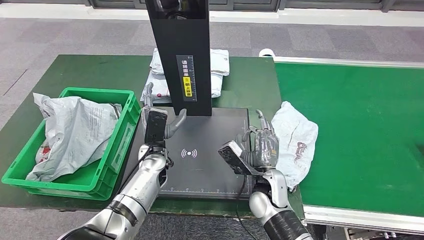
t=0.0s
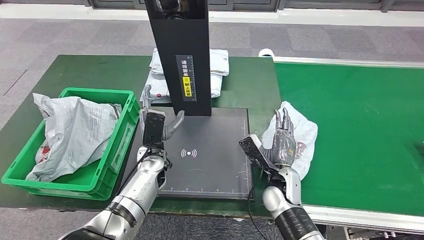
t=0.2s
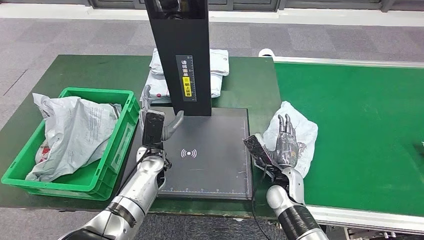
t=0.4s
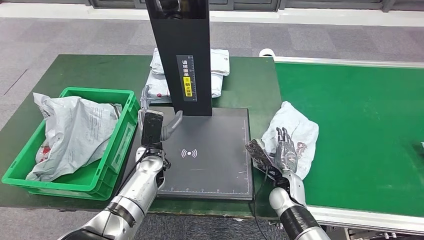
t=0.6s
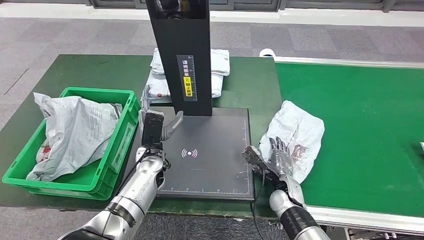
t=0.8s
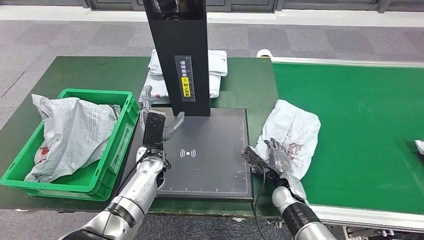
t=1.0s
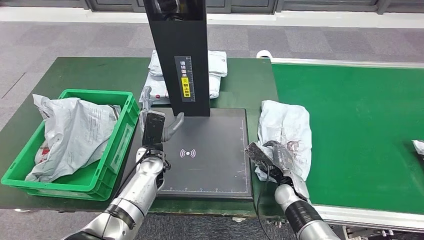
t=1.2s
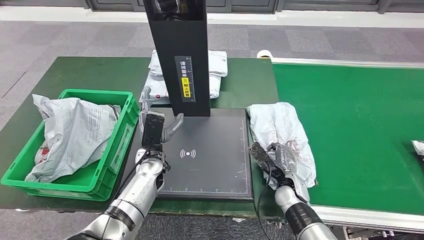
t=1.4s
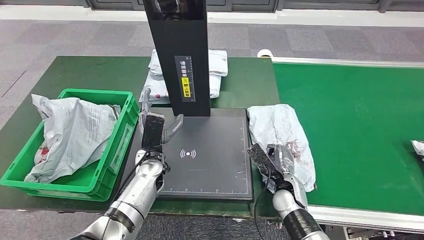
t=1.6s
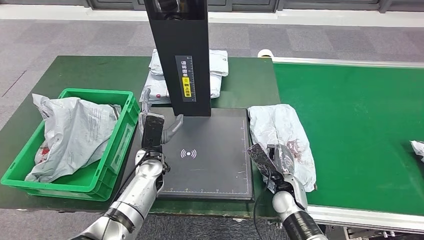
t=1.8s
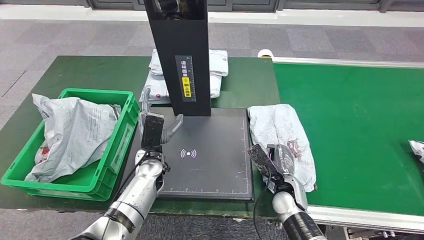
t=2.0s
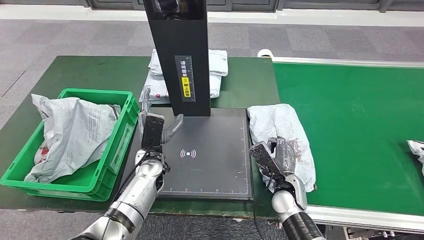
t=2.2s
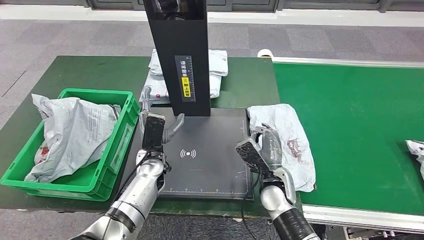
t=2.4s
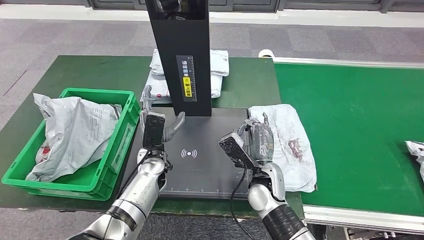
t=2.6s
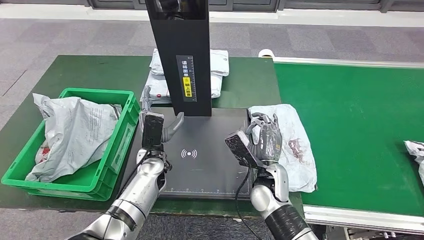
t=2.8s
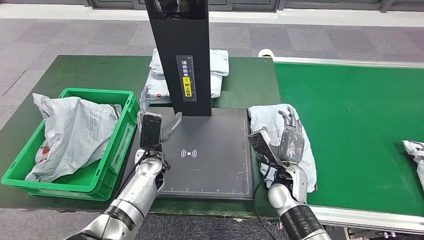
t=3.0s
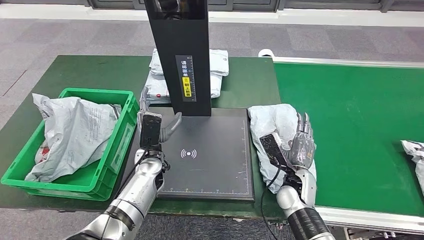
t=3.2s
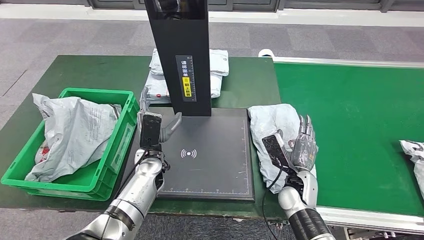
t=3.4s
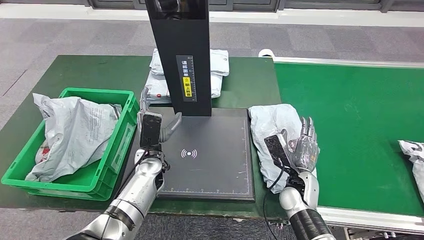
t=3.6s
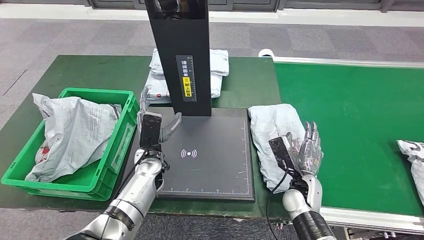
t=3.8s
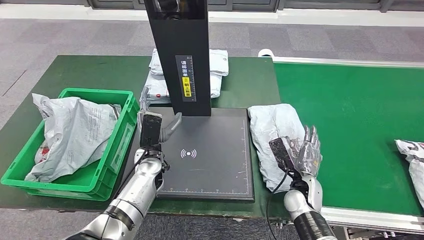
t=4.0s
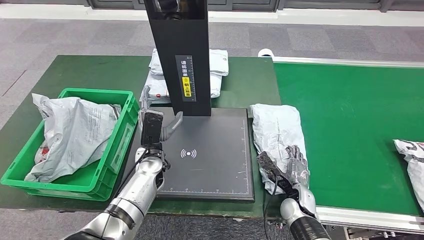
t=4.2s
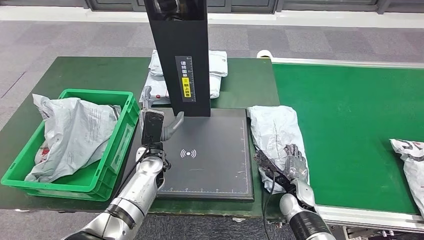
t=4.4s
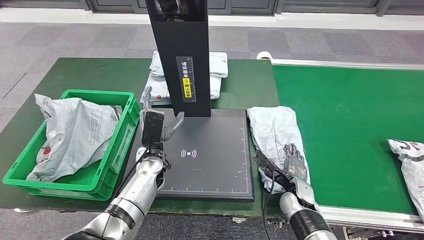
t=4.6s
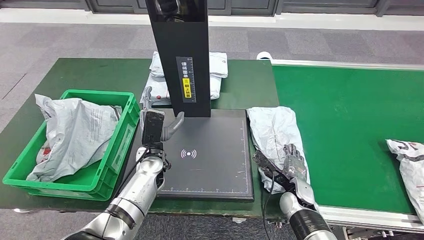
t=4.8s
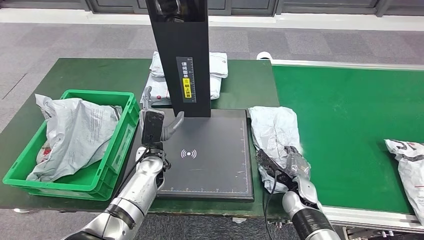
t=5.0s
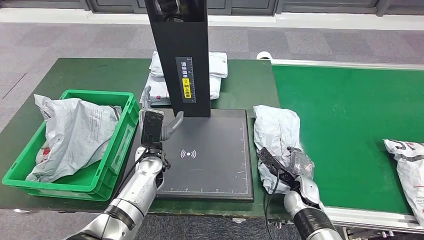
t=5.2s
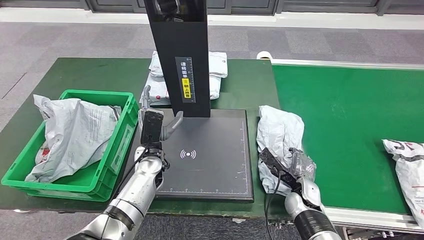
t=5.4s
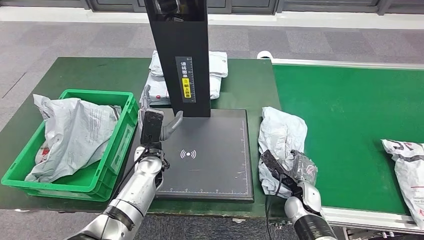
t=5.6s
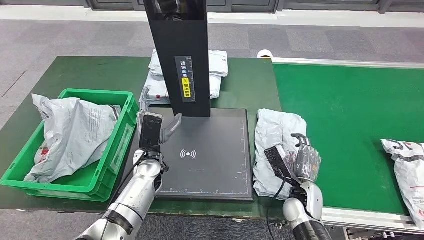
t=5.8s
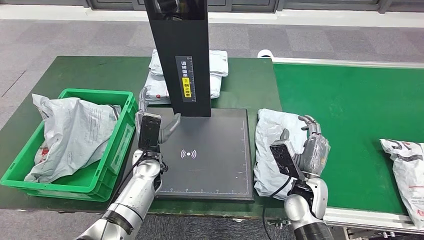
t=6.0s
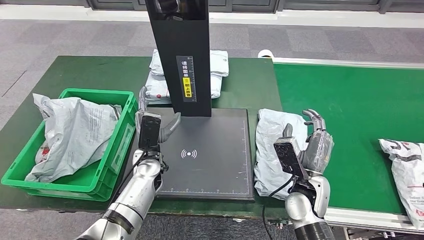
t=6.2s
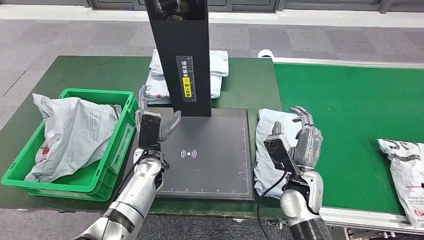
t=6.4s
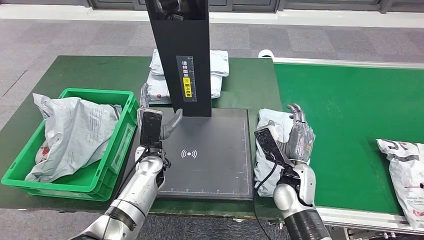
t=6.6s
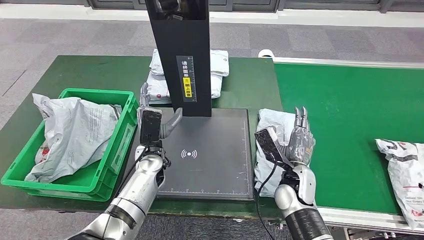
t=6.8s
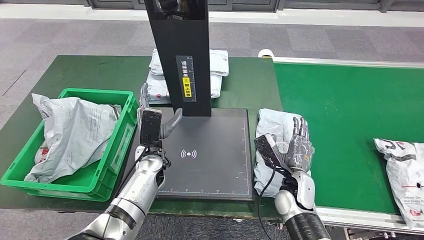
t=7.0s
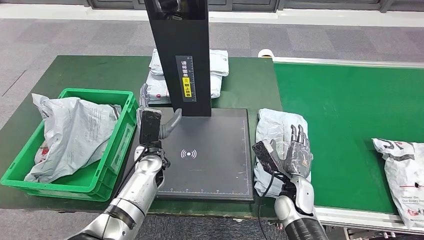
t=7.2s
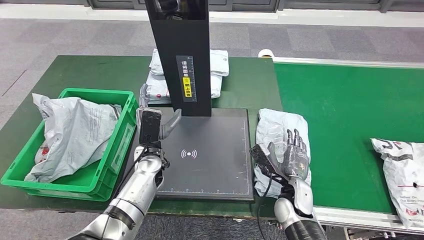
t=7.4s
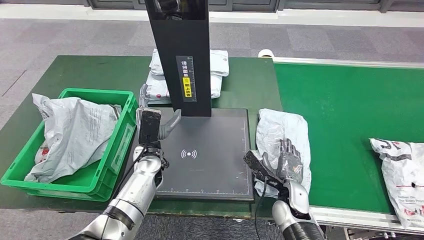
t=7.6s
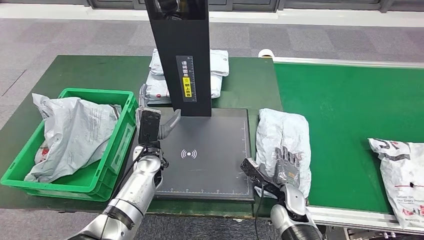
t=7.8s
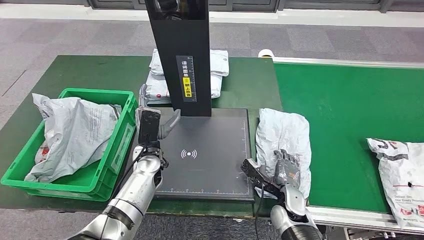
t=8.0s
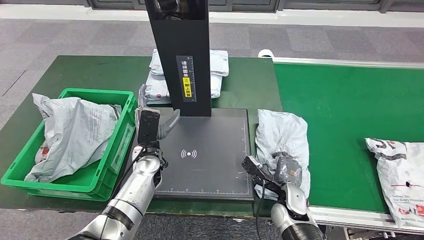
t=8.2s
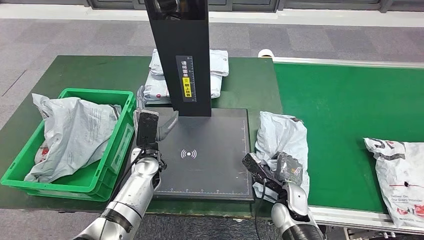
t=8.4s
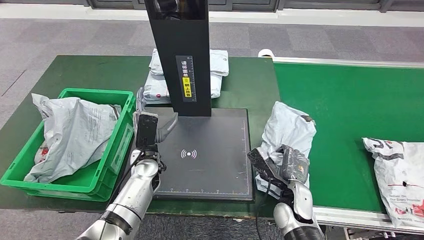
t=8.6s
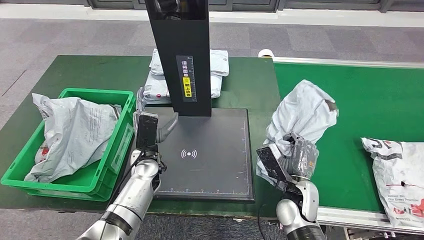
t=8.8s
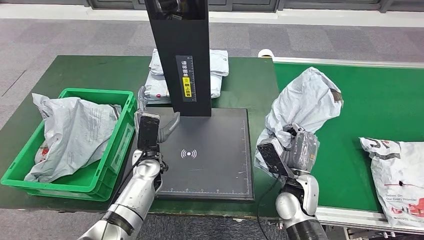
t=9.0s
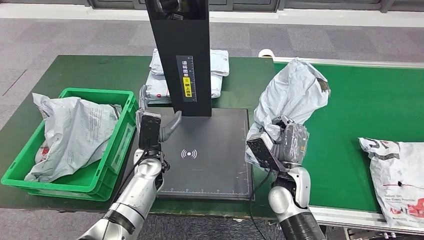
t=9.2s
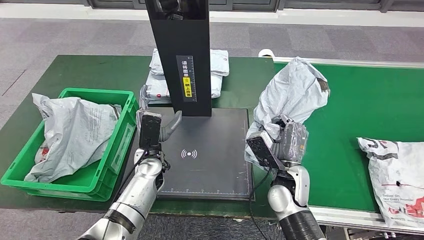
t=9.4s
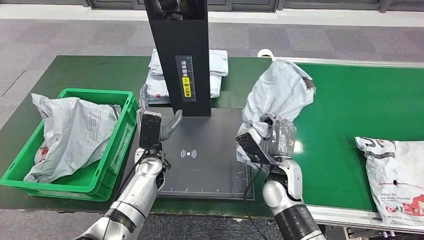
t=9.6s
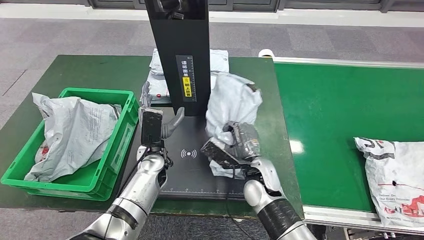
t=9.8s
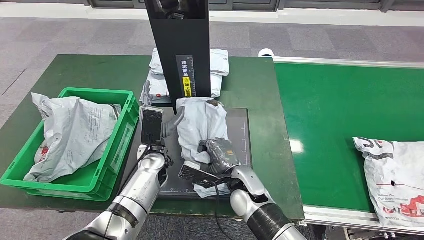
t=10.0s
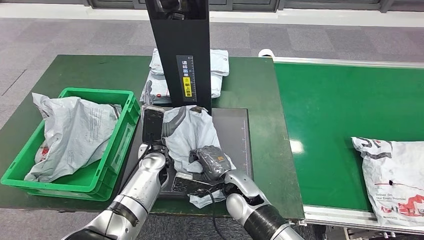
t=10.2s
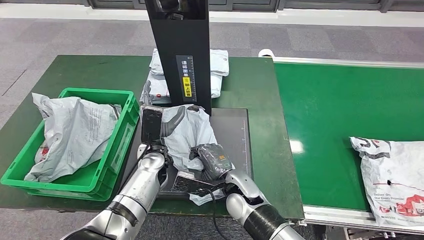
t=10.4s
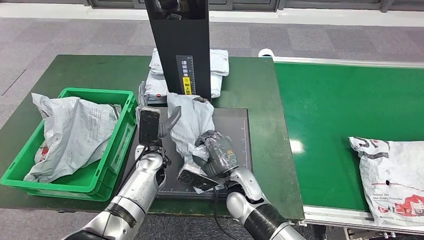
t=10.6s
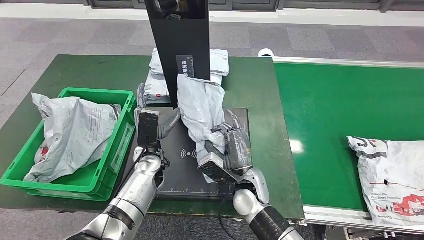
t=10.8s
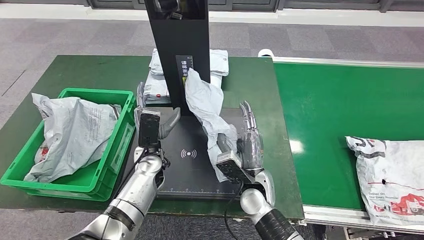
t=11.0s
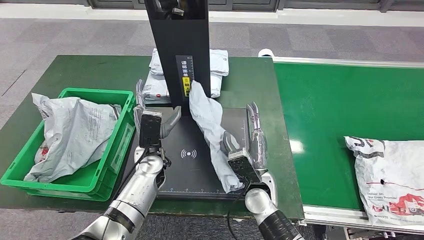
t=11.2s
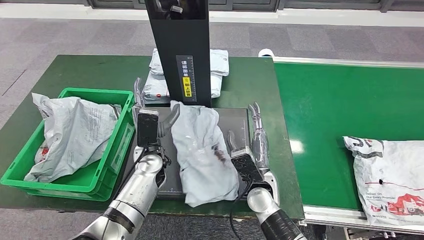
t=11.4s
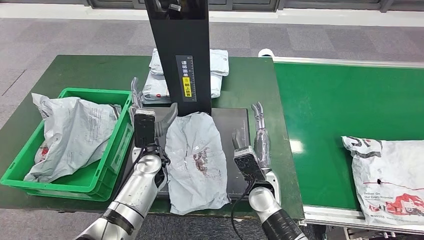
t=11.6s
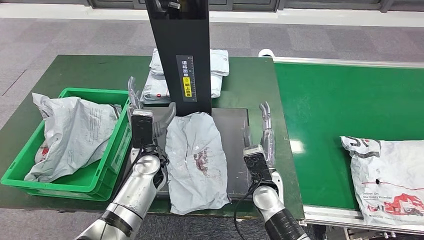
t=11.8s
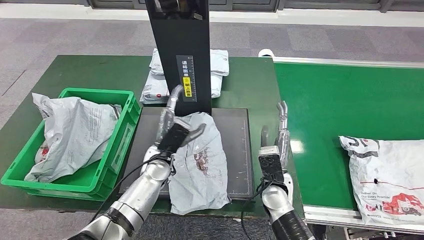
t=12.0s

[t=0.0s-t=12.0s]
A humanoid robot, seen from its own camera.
Step, t=6.6s to t=9.2s: Pick up the parcel from the conveyor belt.
Step, t=9.4s to t=12.0s: Place the parcel onto the inbound machine.
t=0.0s to t=1.6s: The right hand travels to the right and downward by approximately 10 cm.
t=1.6s to t=3.0s: The right hand goes some 5 cm upward.
t=3.0s to t=4.4s: The right hand is displaced downward and to the right by approximately 10 cm.
t=4.4s to t=6.0s: The right hand is displaced upward by about 10 cm.
t=6.0s to t=7.6s: The right hand is displaced downward by roughly 5 cm.
t=7.6s to t=9.0s: The right hand travels upward by some 5 cm.
t=10.4s to t=12.0s: The right hand is displaced to the right by some 10 cm.

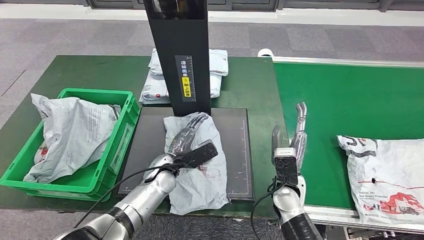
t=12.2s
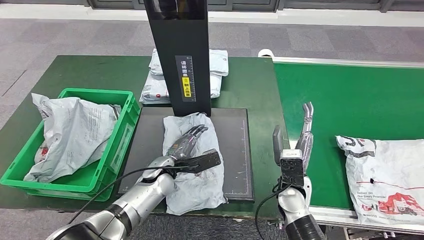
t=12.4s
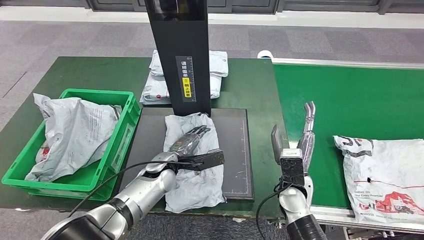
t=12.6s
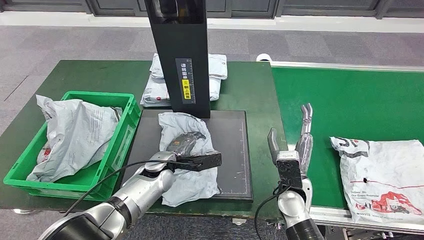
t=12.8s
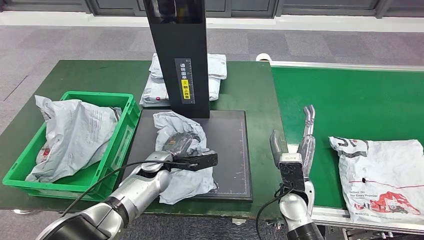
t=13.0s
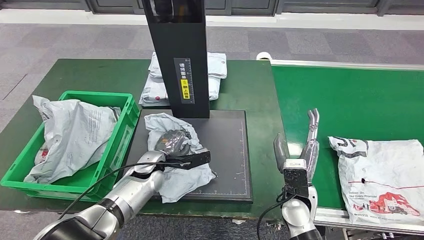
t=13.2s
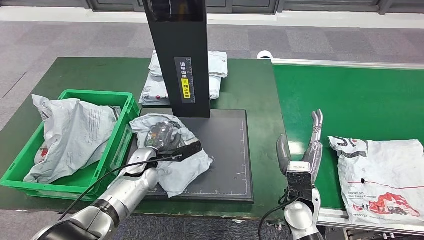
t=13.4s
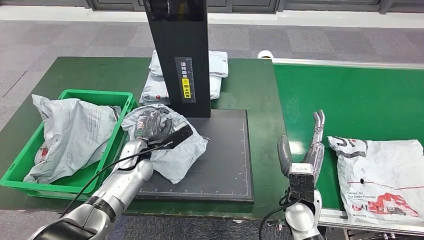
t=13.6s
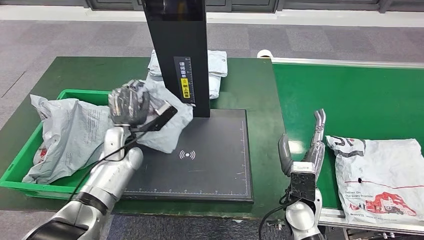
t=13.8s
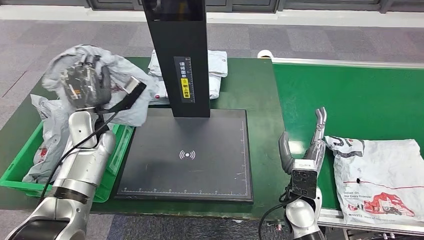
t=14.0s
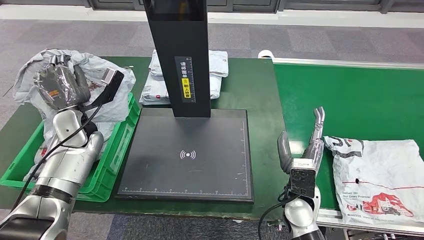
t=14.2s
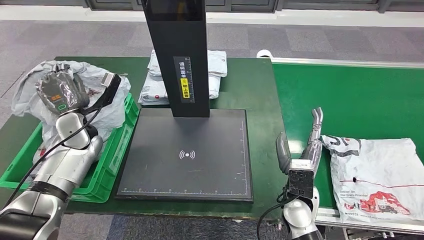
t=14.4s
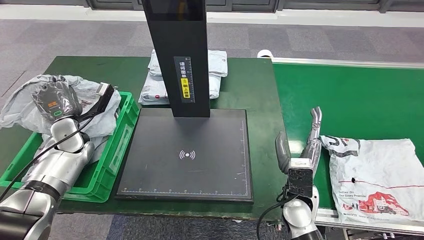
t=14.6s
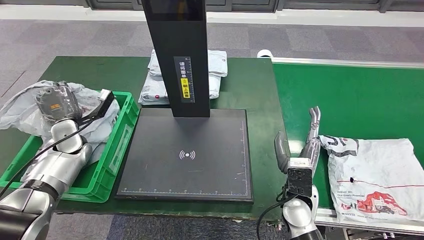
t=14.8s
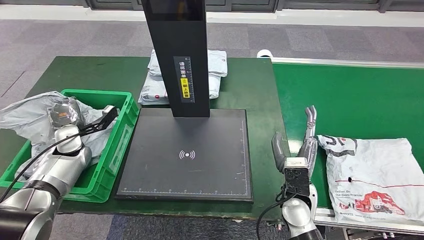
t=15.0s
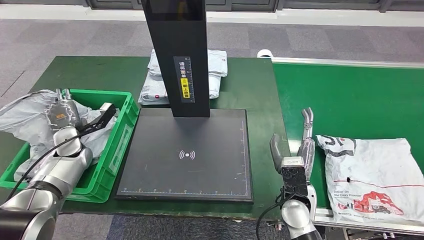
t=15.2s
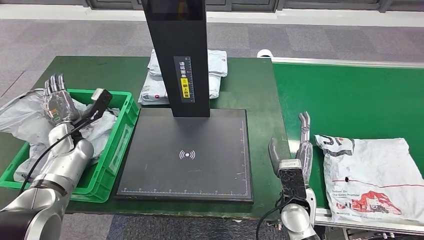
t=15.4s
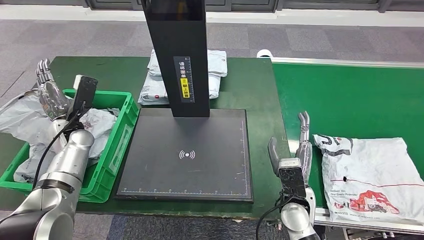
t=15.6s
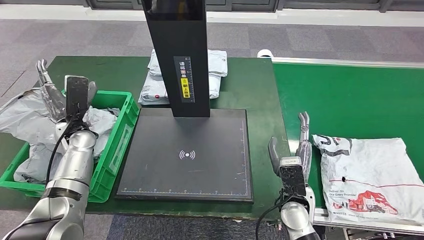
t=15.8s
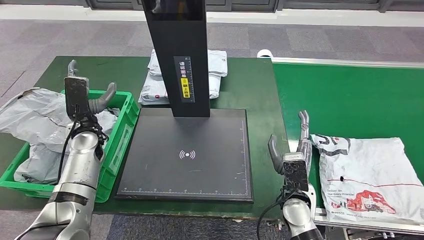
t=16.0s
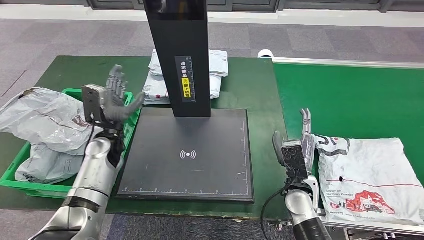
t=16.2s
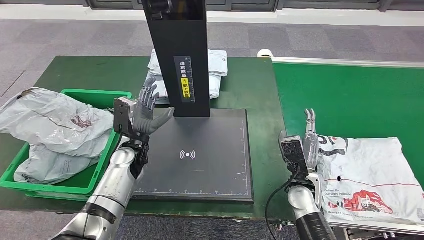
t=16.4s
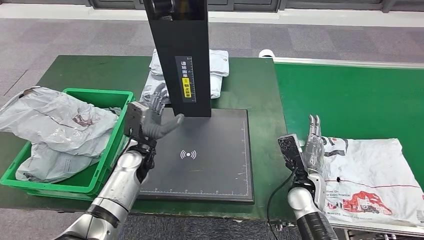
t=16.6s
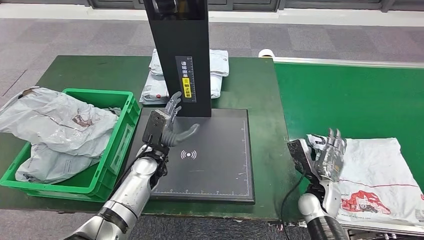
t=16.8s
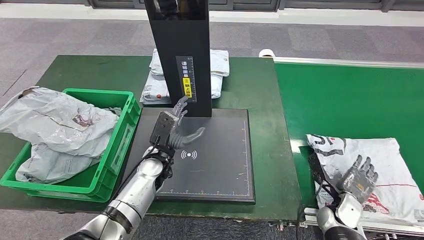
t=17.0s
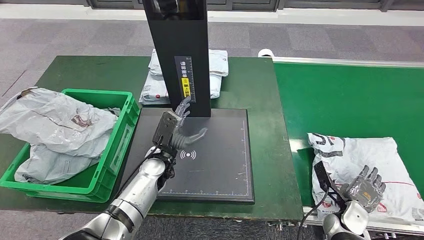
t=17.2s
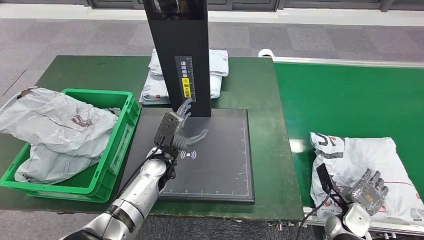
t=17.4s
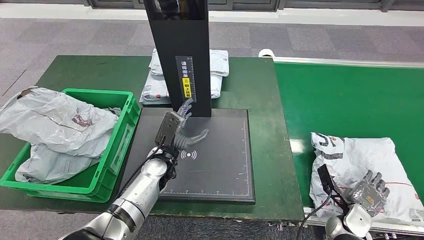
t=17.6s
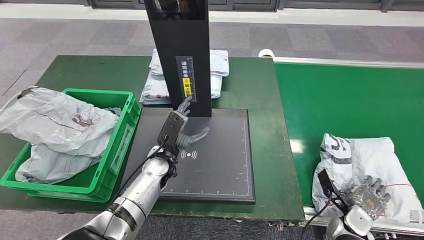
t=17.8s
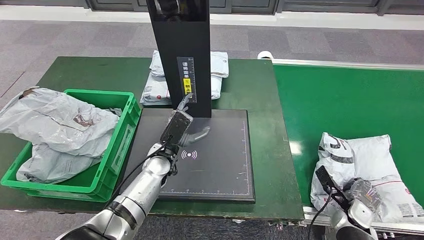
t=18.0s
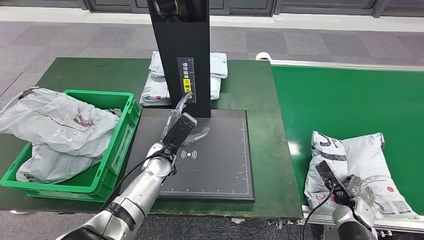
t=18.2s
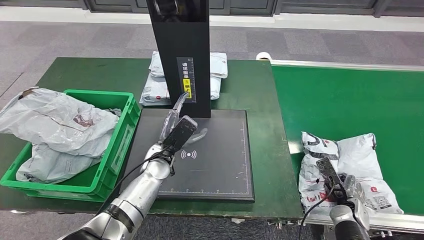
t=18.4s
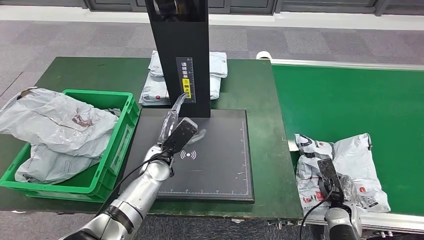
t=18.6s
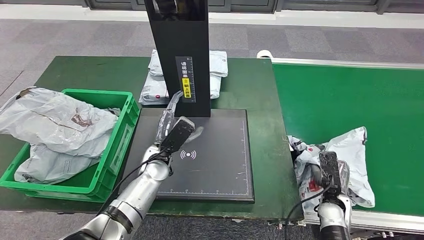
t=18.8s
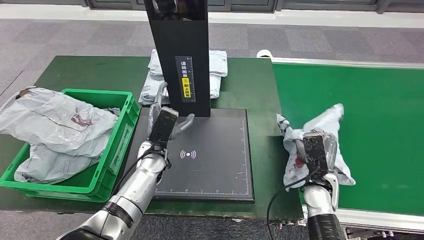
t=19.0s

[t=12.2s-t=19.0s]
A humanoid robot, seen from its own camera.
Step, t=12.2s to t=13.8s: Pick up the parcel from the inbound machine.
Step, t=14.0s to t=16.2s: Place the parcel into the delivery box.
Step, t=16.4s to t=18.6s: Pick up the parcel from the conveyor belt.
